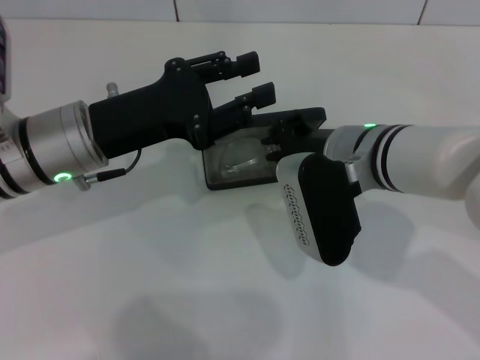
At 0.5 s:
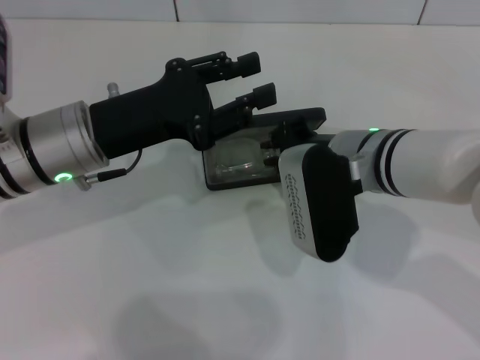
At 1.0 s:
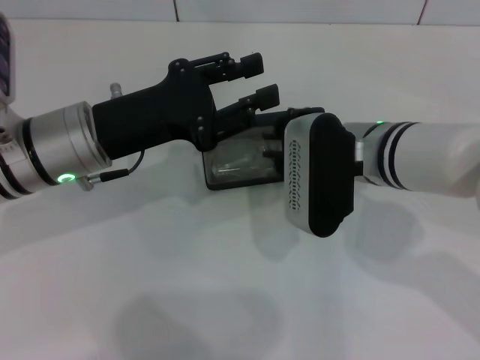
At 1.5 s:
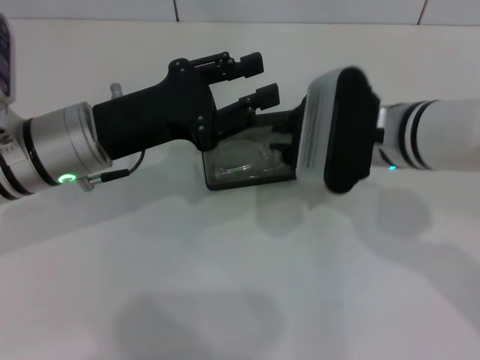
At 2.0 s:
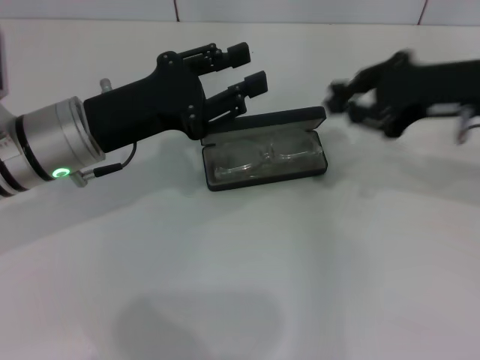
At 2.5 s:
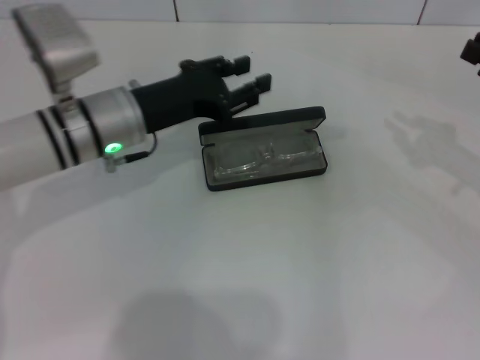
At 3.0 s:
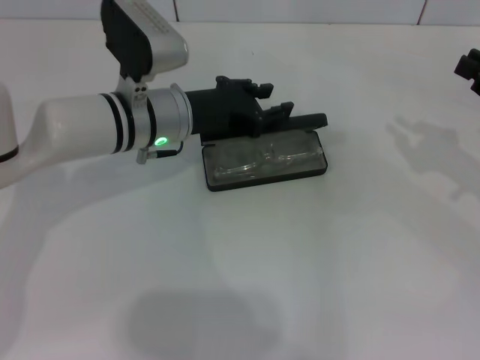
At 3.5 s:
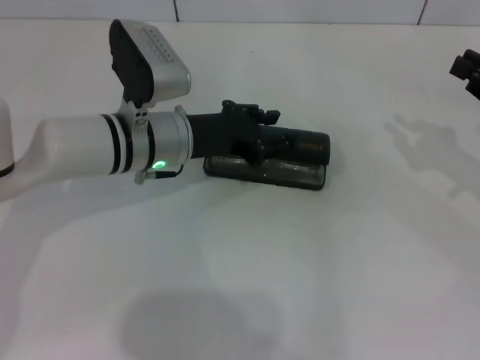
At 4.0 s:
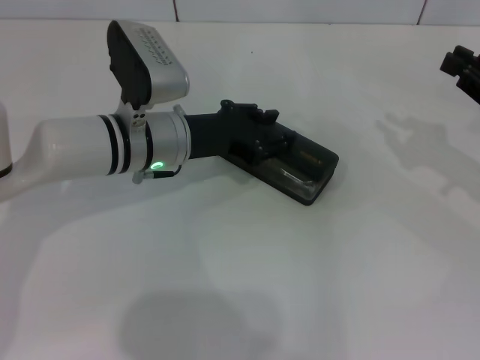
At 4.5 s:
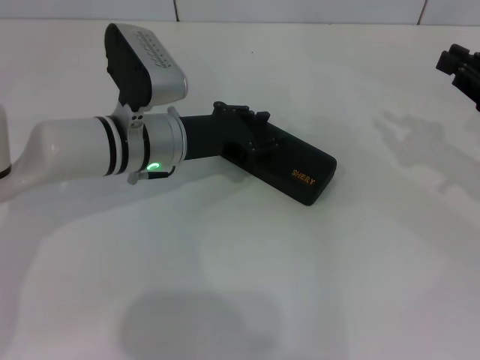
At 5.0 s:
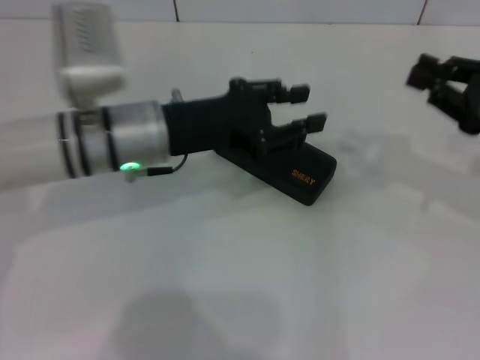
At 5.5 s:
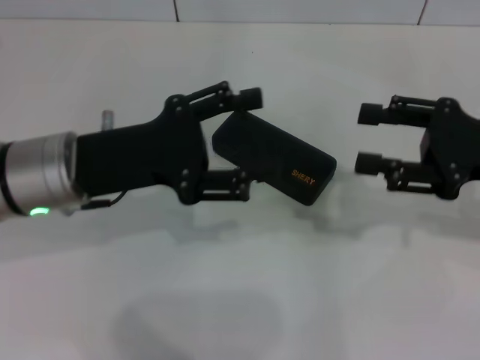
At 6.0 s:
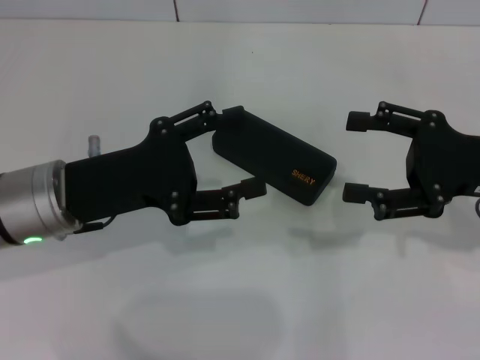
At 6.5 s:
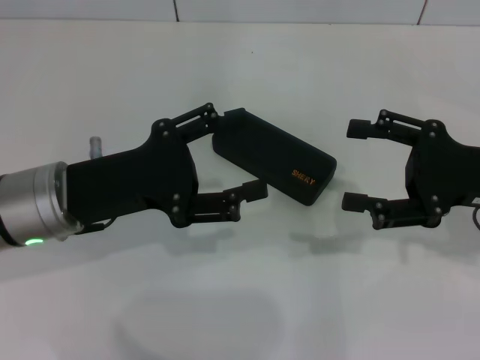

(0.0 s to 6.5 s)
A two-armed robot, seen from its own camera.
Step, 1.5 s - 4.5 s: Close the glasses case with your left hand.
0.0 s - 2.0 s: The right gripper shifts about 15 cm to the right and upward.
2.0 s - 4.5 s: The right gripper shifts some 15 cm to the right and downward, while the left gripper moves to the right and forward, approximately 10 cm.
4.5 s - 6.5 s: The right gripper goes some 5 cm to the left, and opens up. The left gripper is displaced backward and to the left by about 10 cm, and opens.
